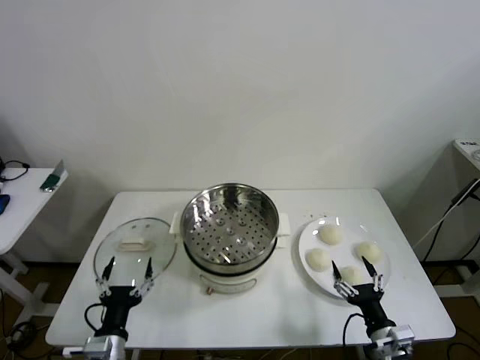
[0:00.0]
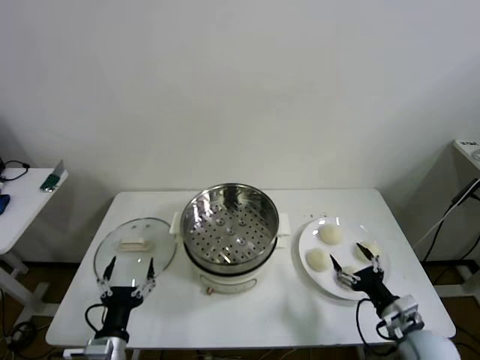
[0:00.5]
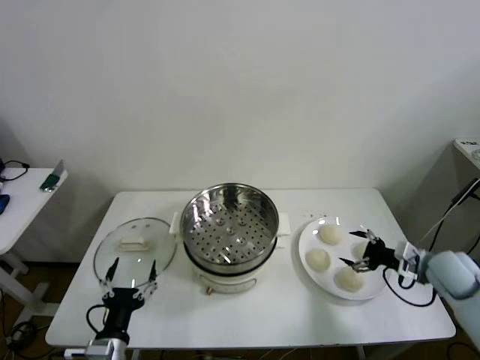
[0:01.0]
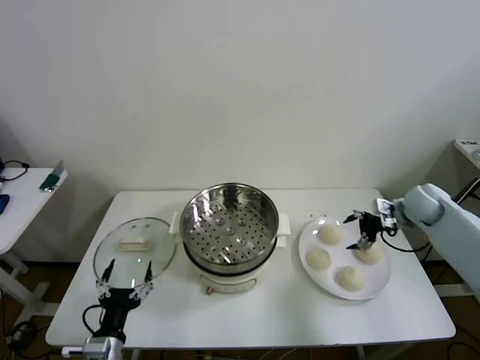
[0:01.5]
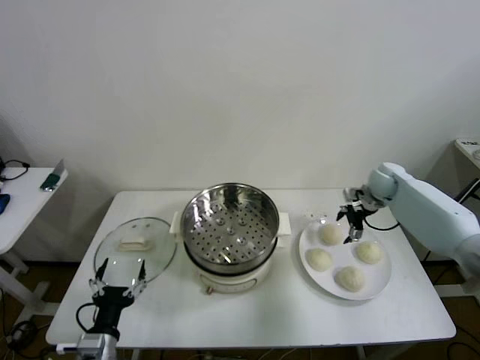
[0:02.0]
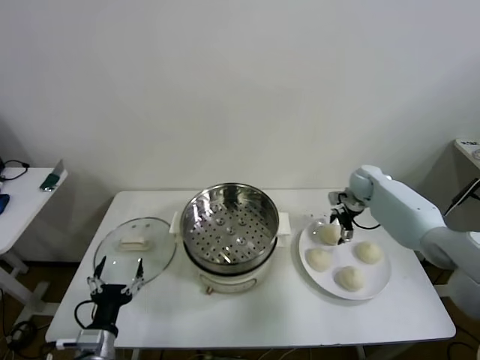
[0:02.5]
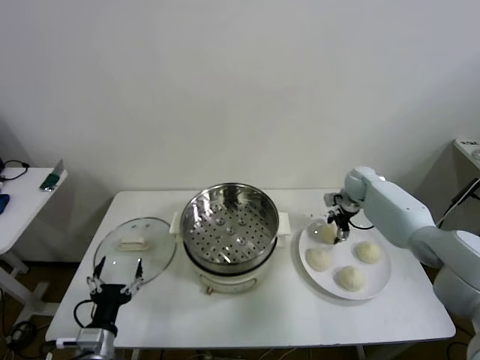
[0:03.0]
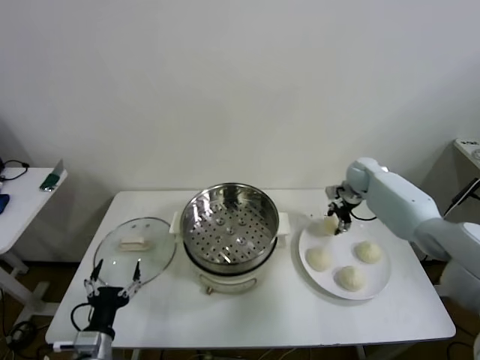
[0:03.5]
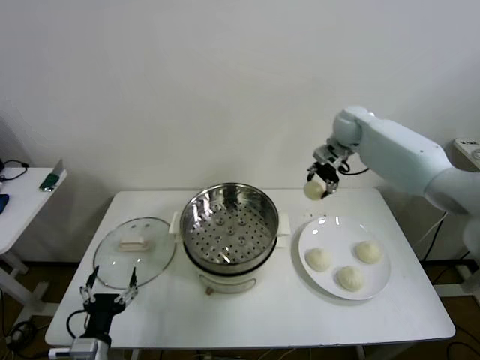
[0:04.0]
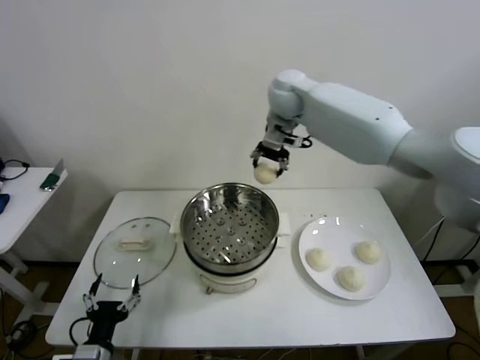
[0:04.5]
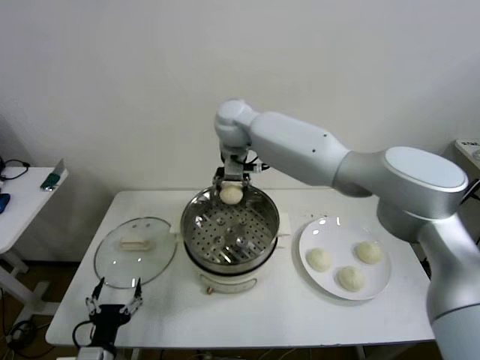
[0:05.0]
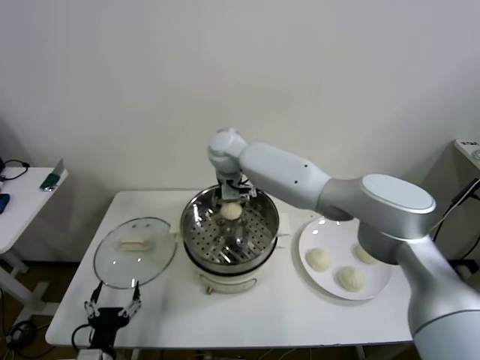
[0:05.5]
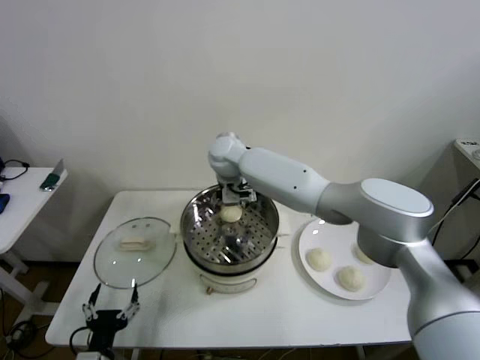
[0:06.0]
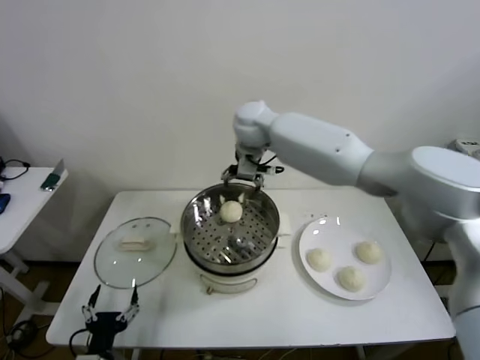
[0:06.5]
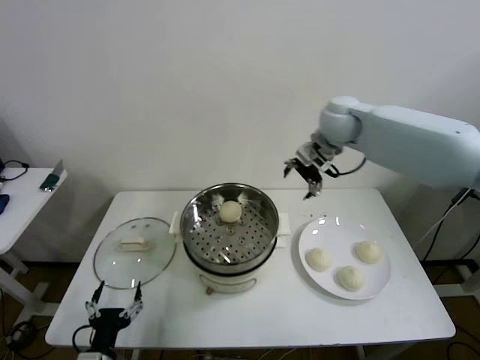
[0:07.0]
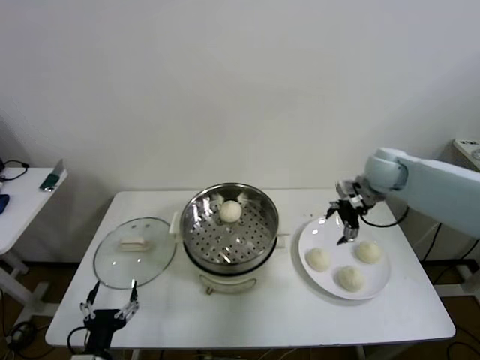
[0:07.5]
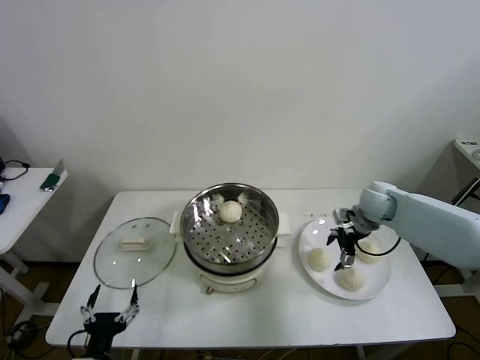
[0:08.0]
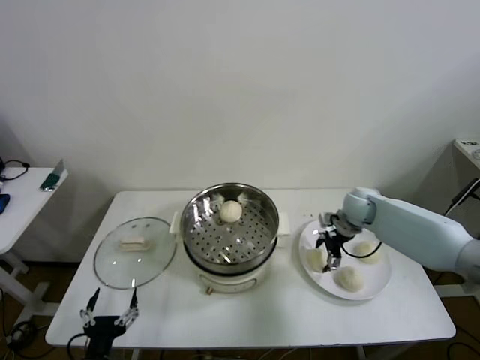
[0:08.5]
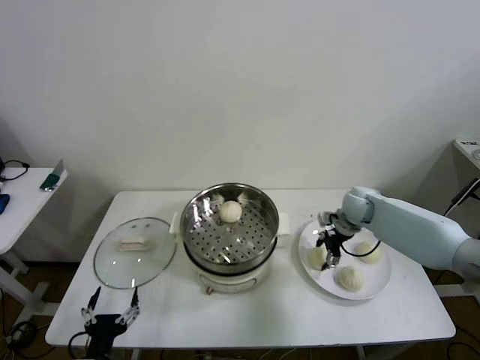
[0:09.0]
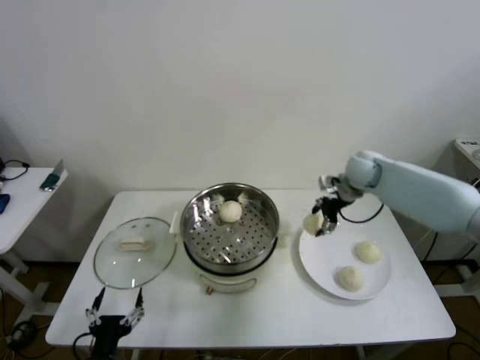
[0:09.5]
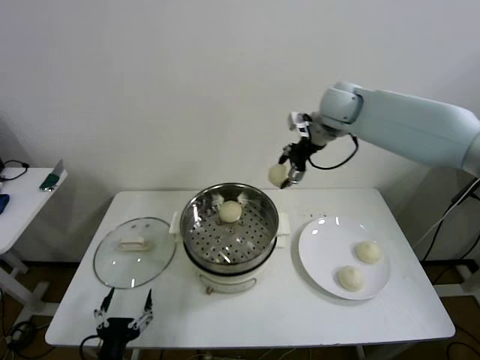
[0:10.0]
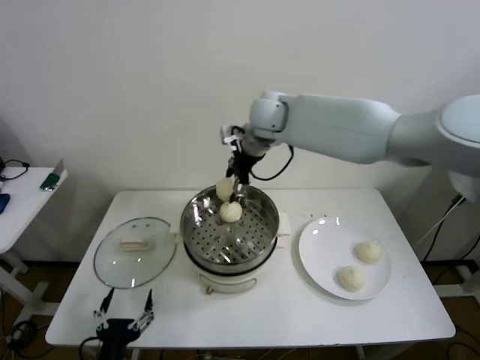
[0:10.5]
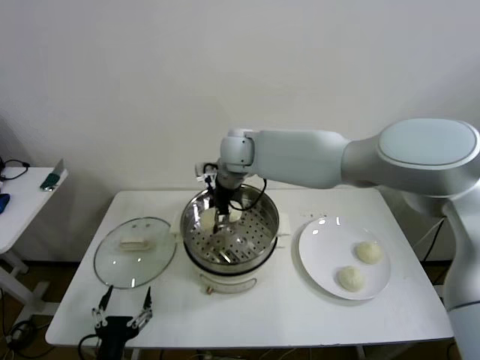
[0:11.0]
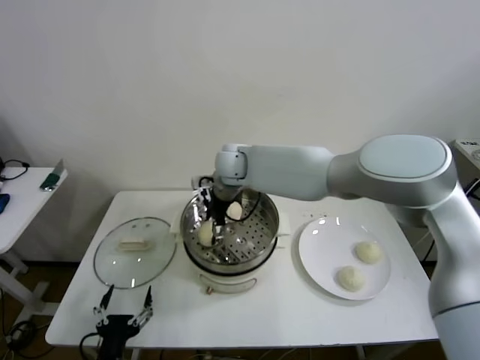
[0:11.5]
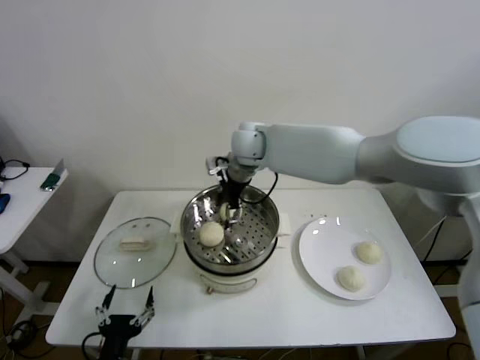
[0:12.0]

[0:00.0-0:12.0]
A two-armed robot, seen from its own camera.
Step, 0.0 to 3.0 s: Grasp the baozi in the plate with right gripper.
Step, 3.5 to 6.0 s: Place the baozi on the steamer with right gripper.
Step, 6.5 to 8.5 s: Grasp the baozi in the plate with right gripper.
Step, 9.0 to 11.5 s: Place the baozi on the steamer with right gripper.
2.0 to 4.0 s: The right gripper travels upward and to the left by about 25 cm, and closes.
4.0 to 6.0 s: The right gripper shifts about 30 cm to the left, and opens its fingers.
6.0 to 8.0 s: The right gripper travels to the right by roughly 35 cm.
8.0 to 10.0 s: The right gripper travels upward and to the left by about 30 cm, and closes its fingers.
10.0 to 12.0 s: The right gripper heads to the left and downward, covering some 15 cm, and opens up.

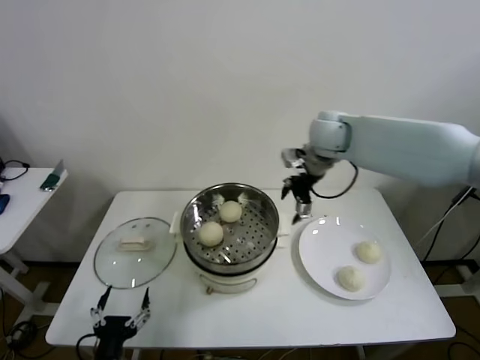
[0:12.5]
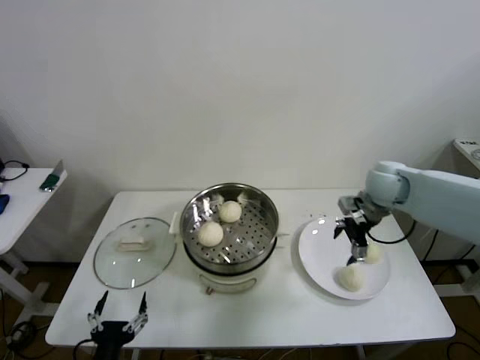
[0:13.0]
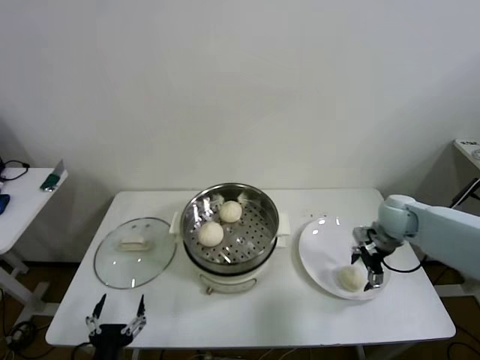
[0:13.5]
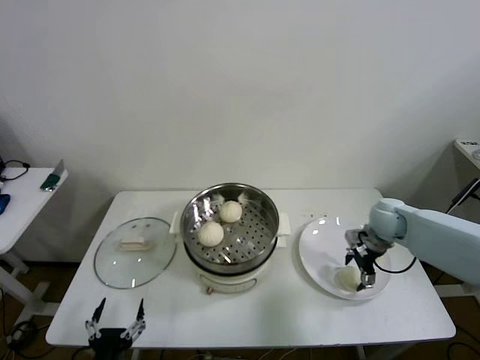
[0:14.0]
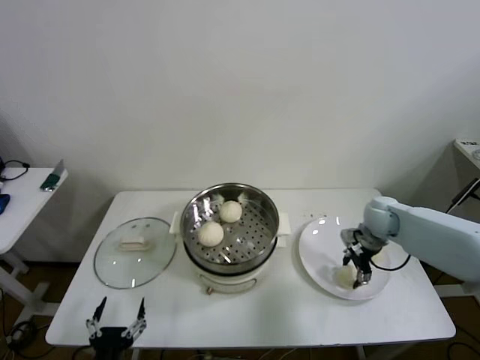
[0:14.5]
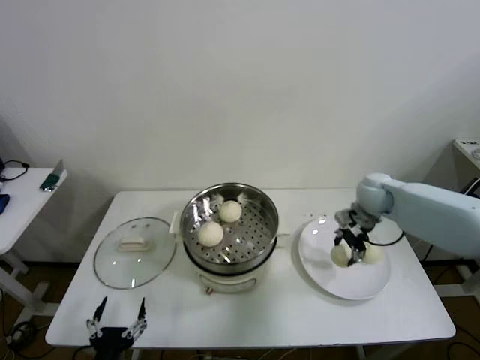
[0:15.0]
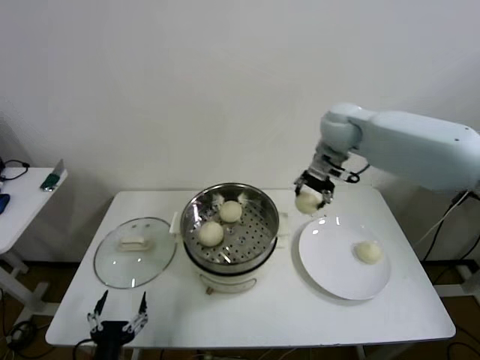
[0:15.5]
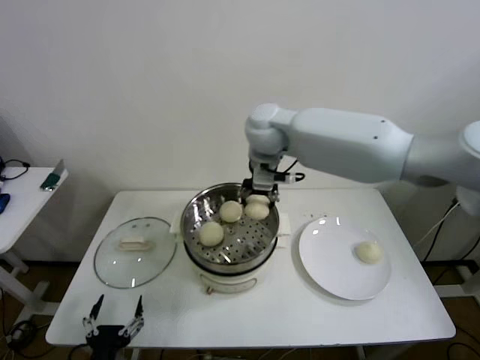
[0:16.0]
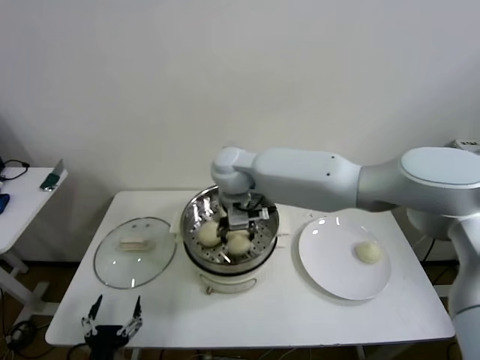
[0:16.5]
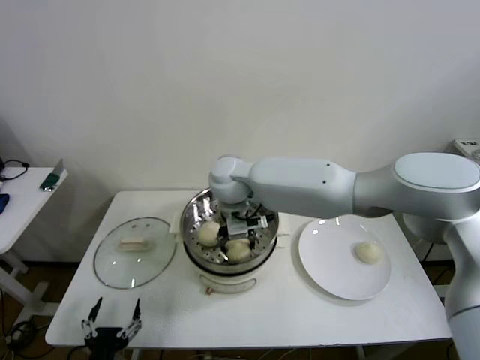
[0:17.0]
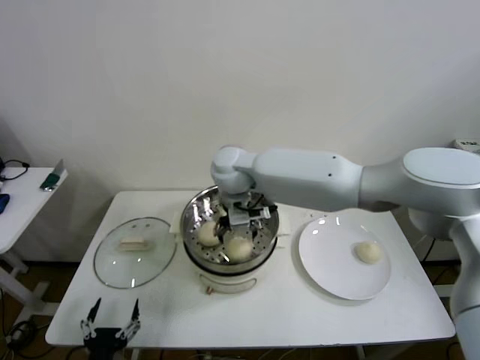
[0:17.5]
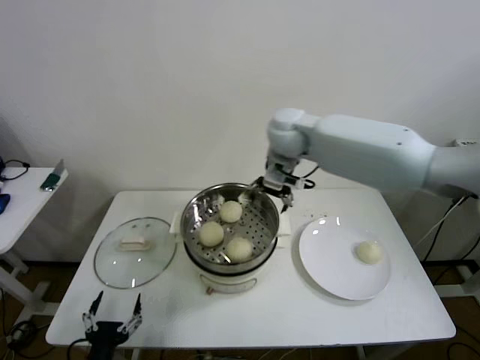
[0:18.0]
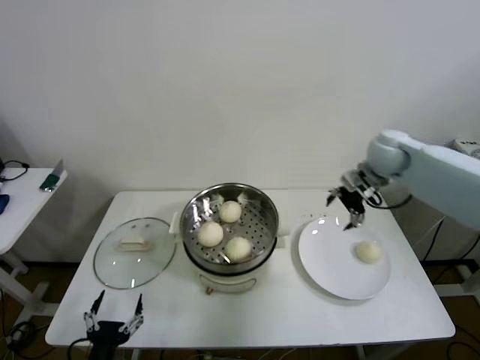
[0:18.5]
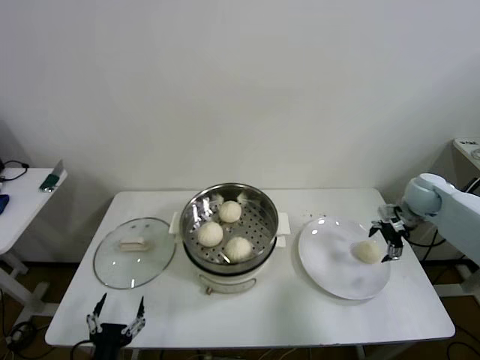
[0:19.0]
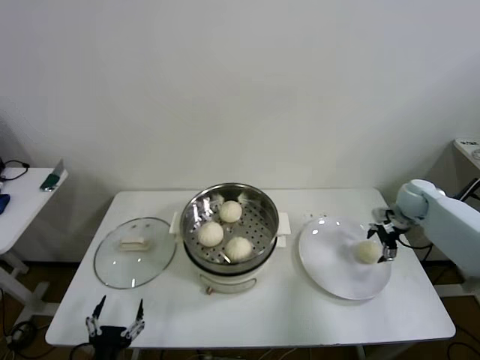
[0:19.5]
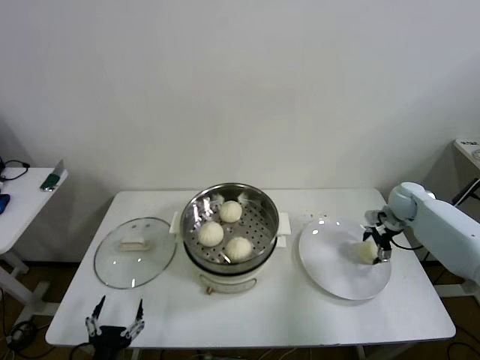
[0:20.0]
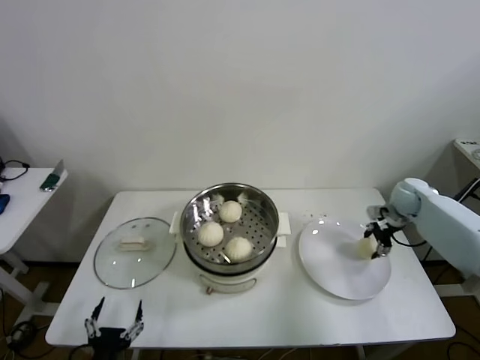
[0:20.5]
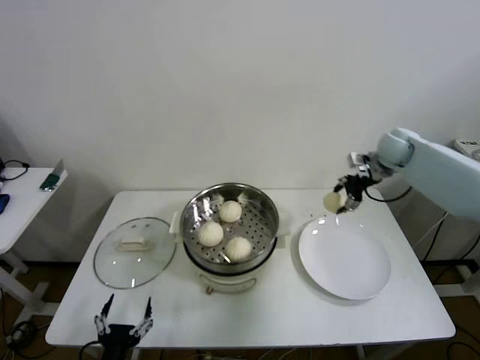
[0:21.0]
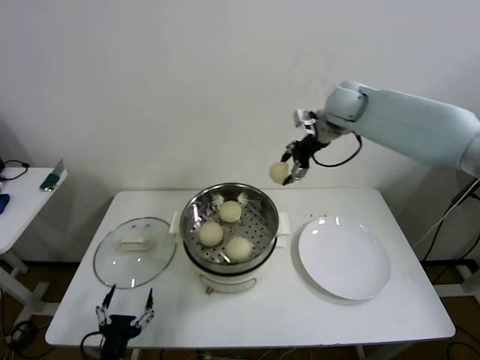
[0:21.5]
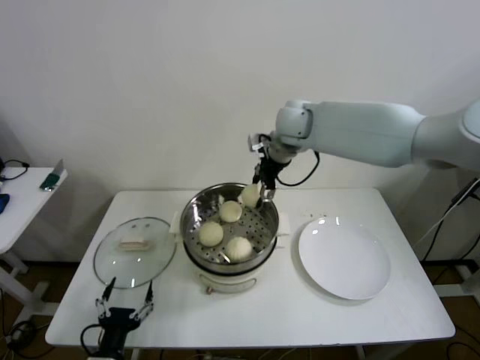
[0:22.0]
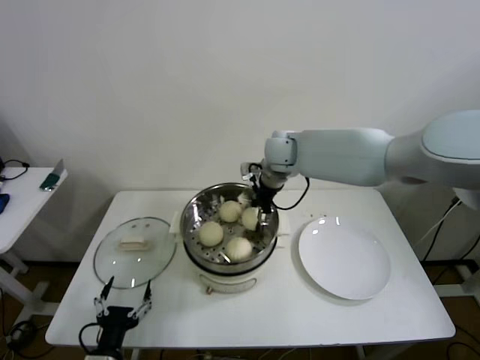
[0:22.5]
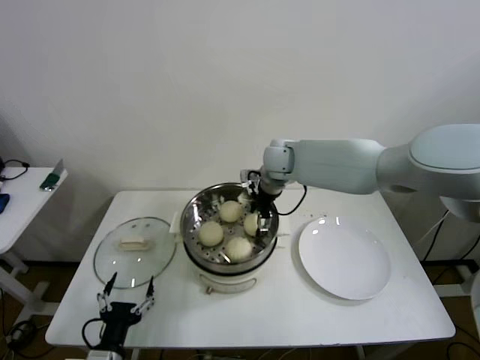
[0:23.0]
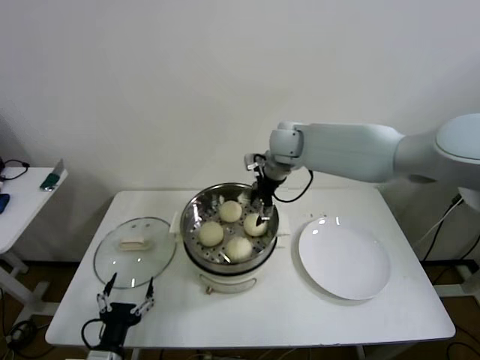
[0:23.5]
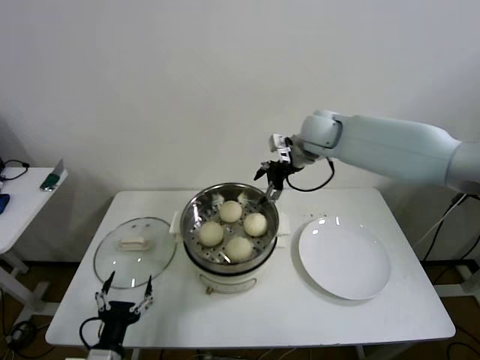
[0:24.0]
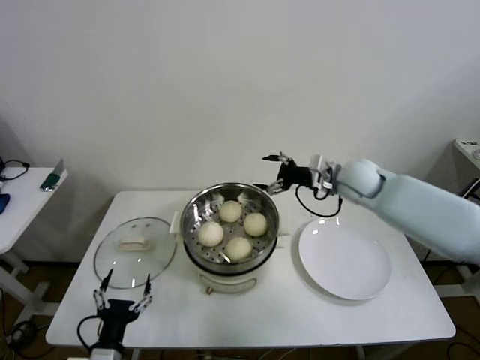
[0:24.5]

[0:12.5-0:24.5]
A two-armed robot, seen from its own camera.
Step, 12.5 to 14.5 s: Grasp the baozi in the plate with right gripper.
Step, 15.0 to 17.5 s: Place the baozi on the steamer with right gripper.
Step, 18.0 to 20.0 s: Grasp the baozi in the plate with right gripper.
Step, 20.5 to 23.5 s: Place the baozi on the steamer with right gripper.
12.5 to 14.5 s: The right gripper is displaced downward and to the right by roughly 25 cm, and closes.
14.5 to 16.5 s: The right gripper heads to the left and upward, covering approximately 40 cm.
16.5 to 18.5 s: The right gripper goes some 35 cm to the right, and opens up.
18.5 to 20.5 s: The right gripper moves downward and to the right, about 15 cm, and closes.
20.5 to 22.5 s: The right gripper is displaced to the left by roughly 35 cm.
22.5 to 24.5 s: The right gripper travels to the right by about 15 cm, and opens up.

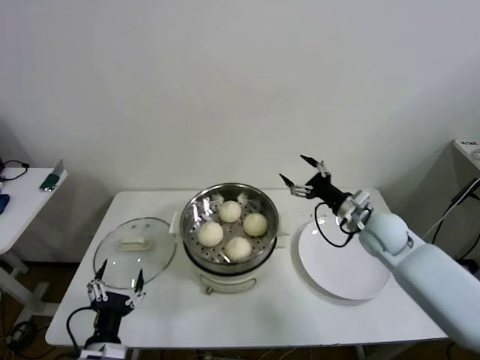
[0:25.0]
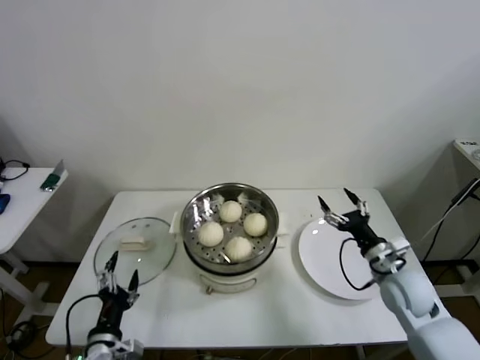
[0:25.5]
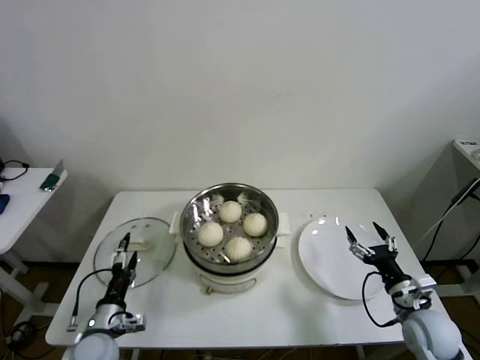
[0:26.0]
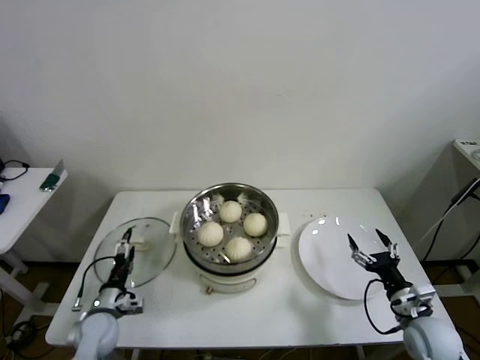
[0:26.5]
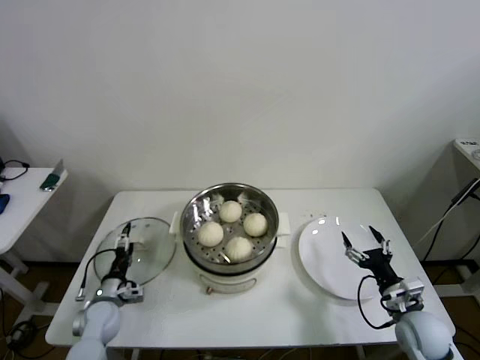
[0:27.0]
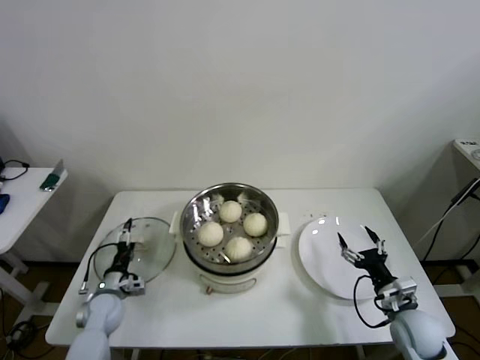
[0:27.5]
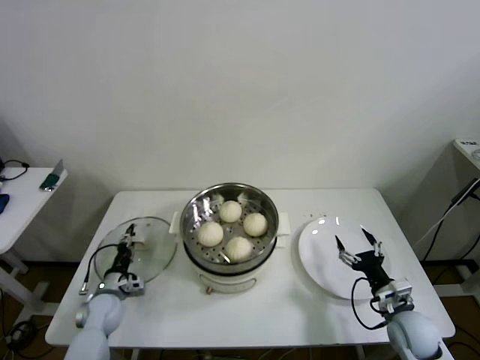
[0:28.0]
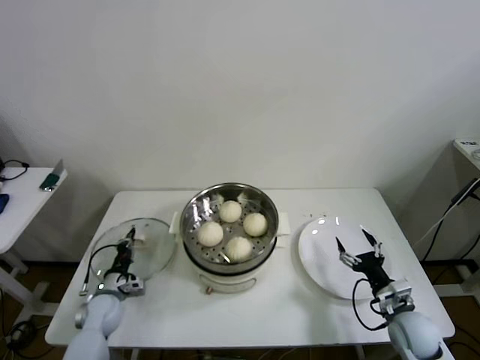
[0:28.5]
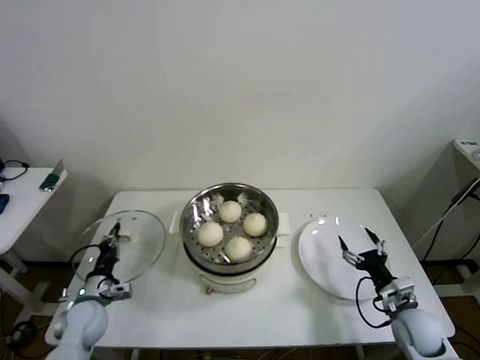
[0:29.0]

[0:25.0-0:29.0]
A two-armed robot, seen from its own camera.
Step, 25.0 to 28.0 s: Grasp the pot lid with left gripper.
25.0 to 27.0 s: The right gripper travels backward and downward by roughly 20 cm, while the left gripper goes approximately 20 cm forward, downward and to the left.
27.0 to 29.0 s: The left gripper closes.
